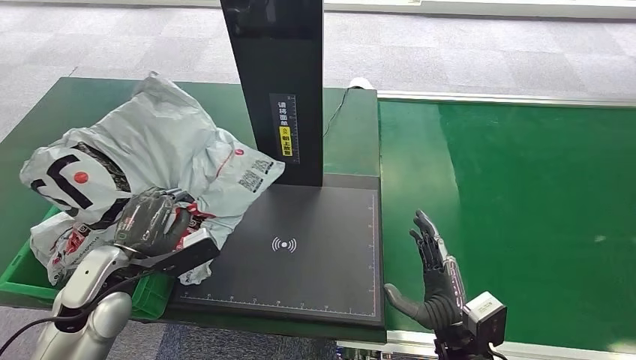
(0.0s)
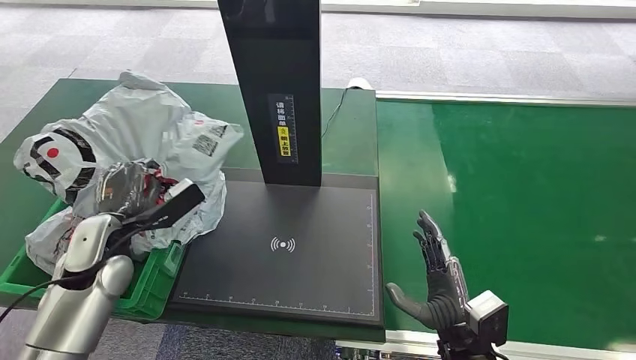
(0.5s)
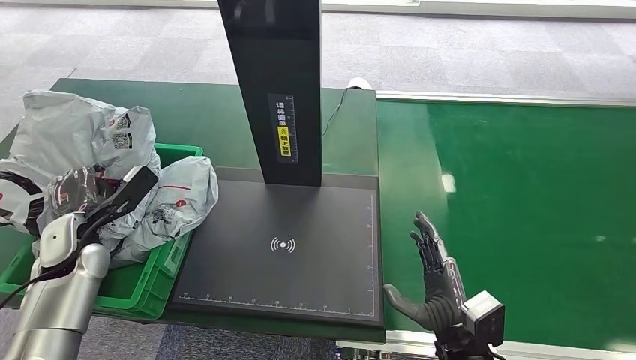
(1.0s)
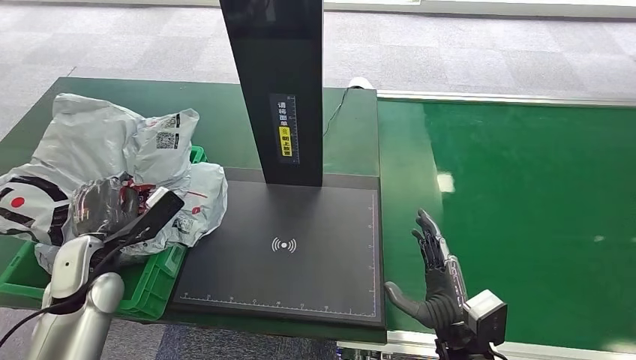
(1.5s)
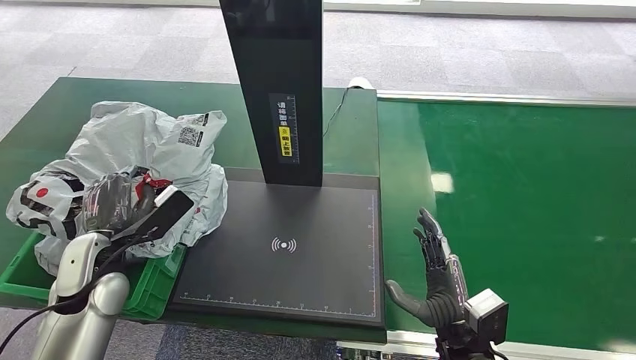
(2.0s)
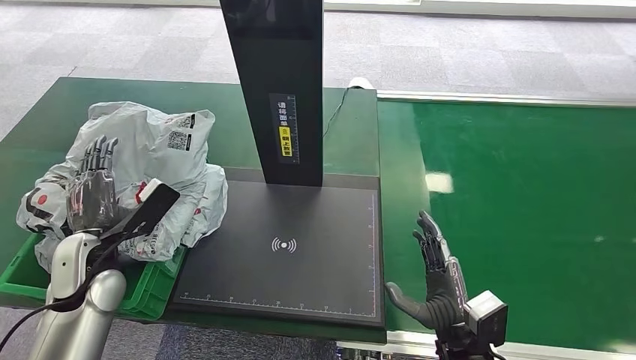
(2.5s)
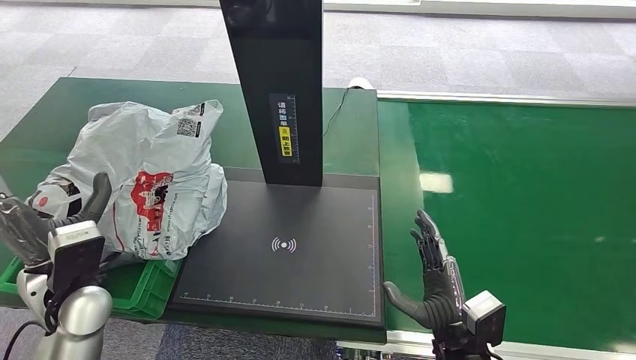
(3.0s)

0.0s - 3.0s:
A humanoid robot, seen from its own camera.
1.5s - 3.0s: The left hand ends up roughly 5 cm from where it was.
